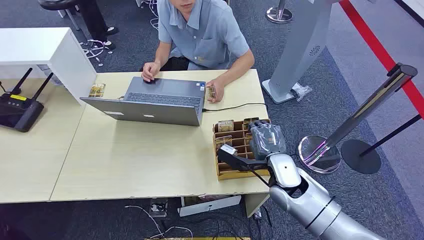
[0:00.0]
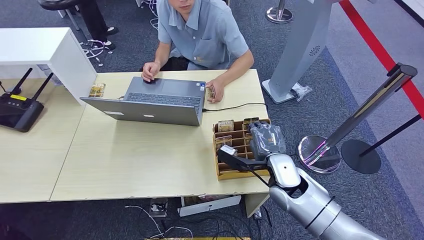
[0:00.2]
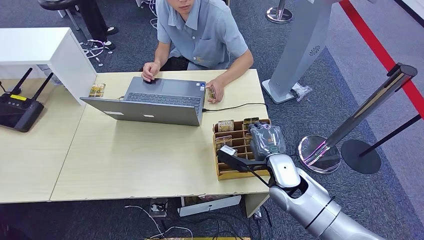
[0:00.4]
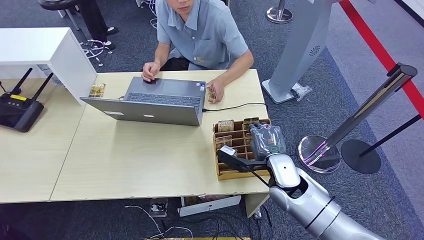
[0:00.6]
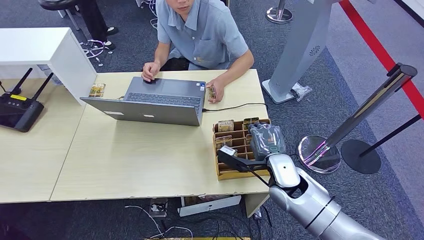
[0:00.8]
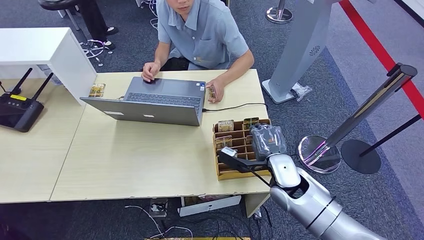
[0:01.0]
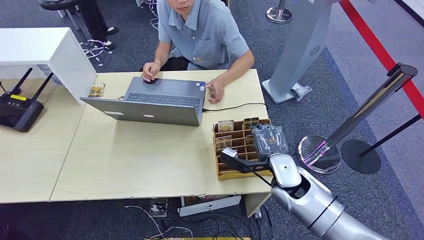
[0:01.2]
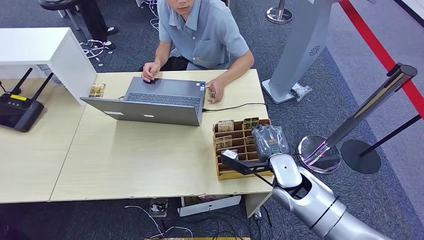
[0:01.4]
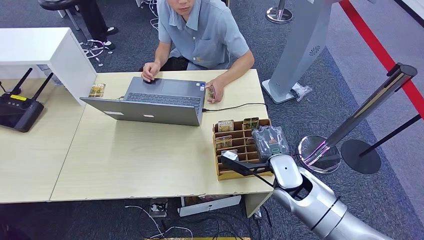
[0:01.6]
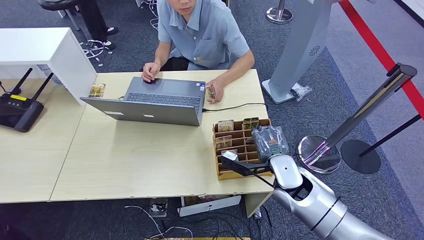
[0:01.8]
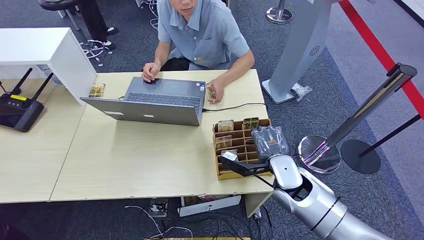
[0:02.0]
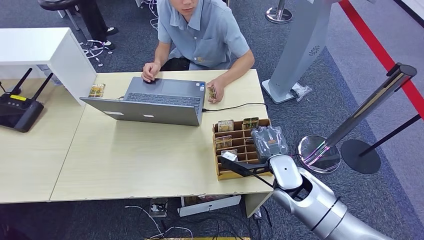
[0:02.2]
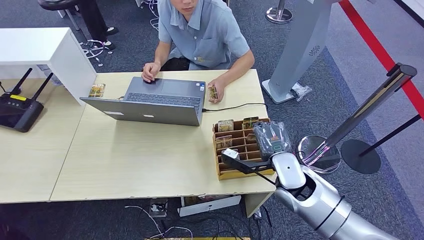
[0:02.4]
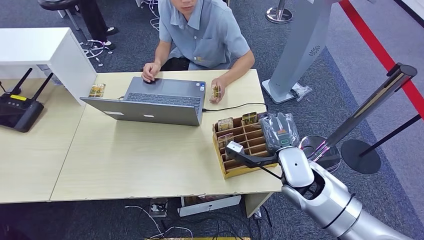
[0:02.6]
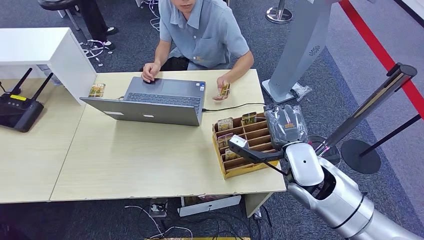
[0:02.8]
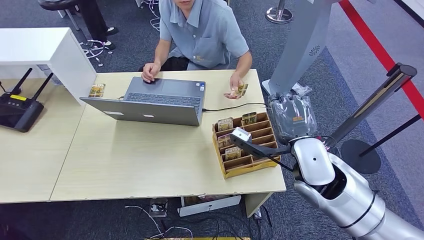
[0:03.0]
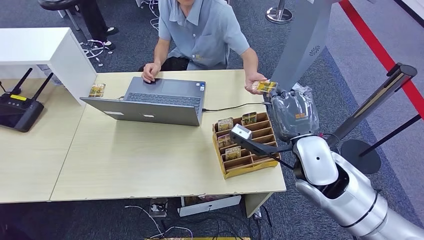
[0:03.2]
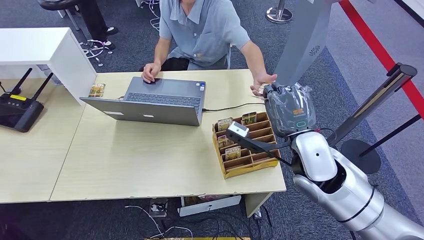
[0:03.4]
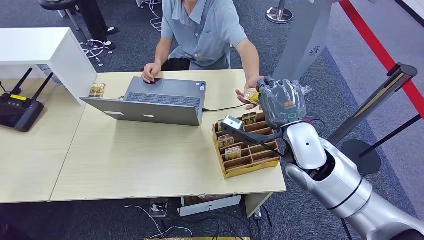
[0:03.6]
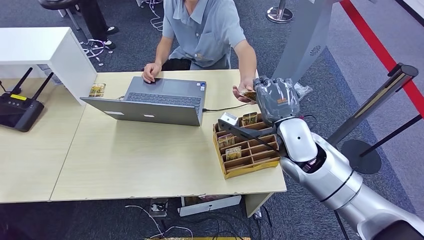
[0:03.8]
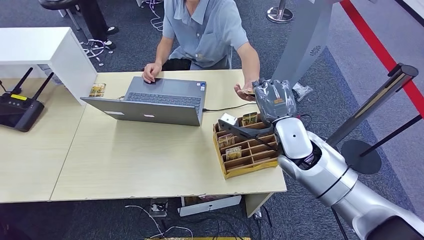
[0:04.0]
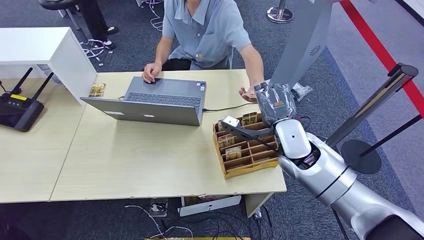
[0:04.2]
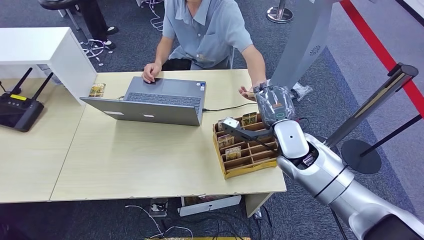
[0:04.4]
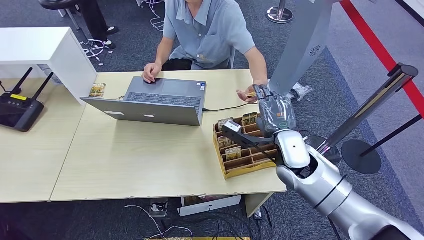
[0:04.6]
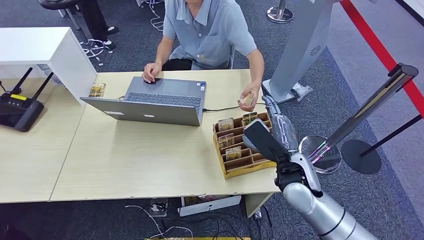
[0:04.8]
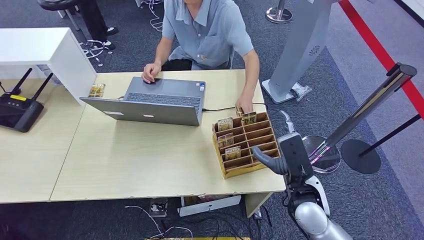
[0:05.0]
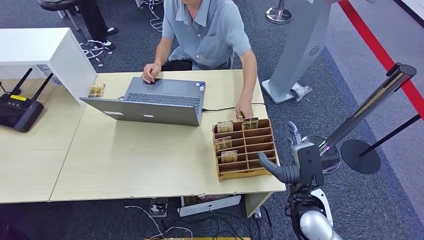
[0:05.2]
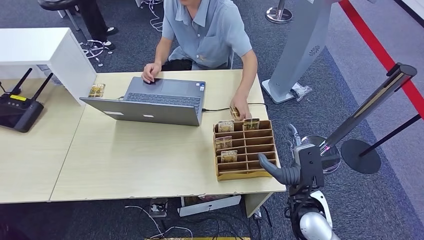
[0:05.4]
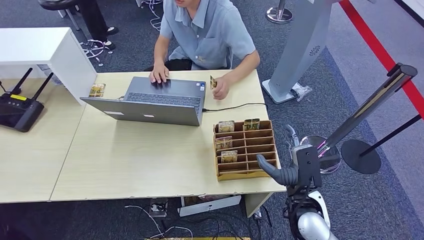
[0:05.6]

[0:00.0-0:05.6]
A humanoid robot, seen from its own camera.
Step, 0:00.0 to 0:02.2: Pick up the key card from the card box.
Step, 0:02.6 to 0:05.6: Hand the key card to the target.
0:01.4 to 0:02.8: The right hand goes roughly 5 cm upward.
0:02.8 to 0:04.2: The right hand shifts about 5 cm forward.
0:04.2 to 0:05.6: The right hand heads backward and downward, covering some 15 cm.
